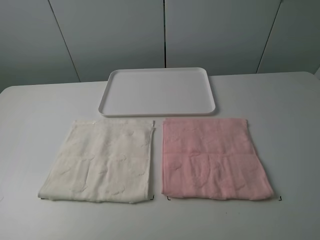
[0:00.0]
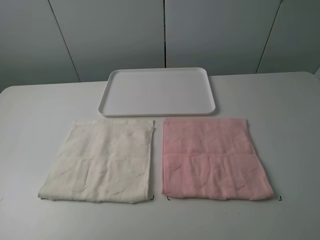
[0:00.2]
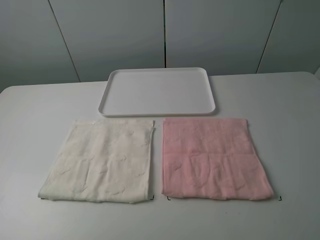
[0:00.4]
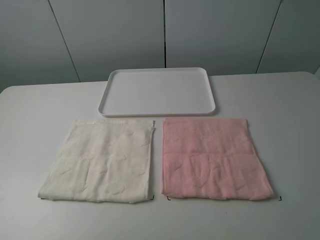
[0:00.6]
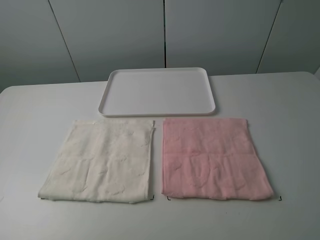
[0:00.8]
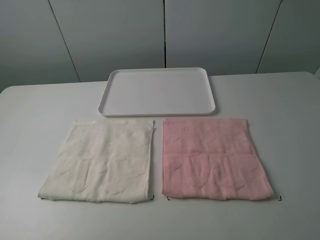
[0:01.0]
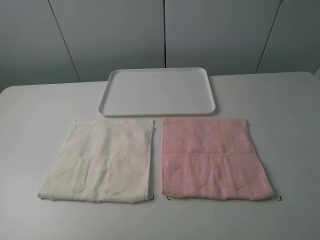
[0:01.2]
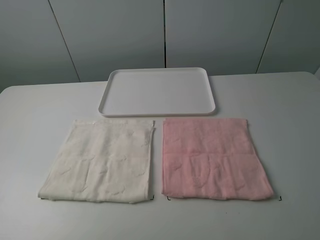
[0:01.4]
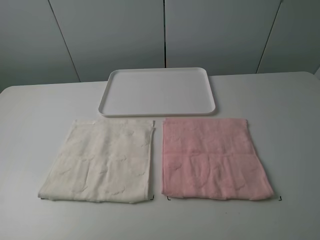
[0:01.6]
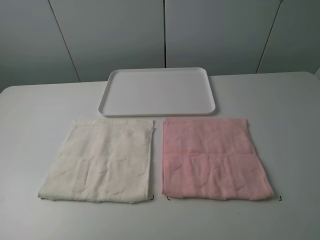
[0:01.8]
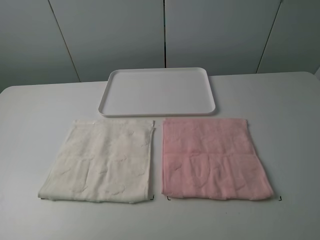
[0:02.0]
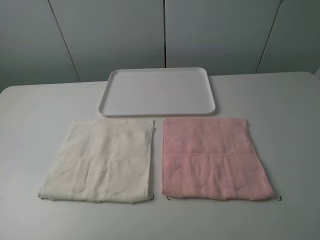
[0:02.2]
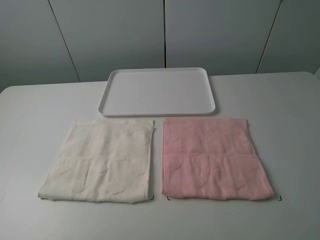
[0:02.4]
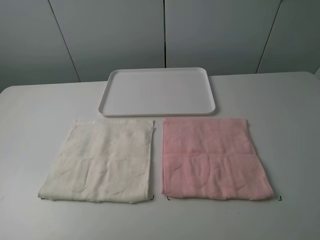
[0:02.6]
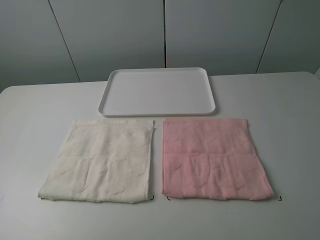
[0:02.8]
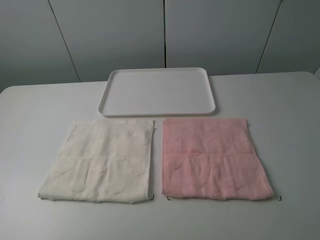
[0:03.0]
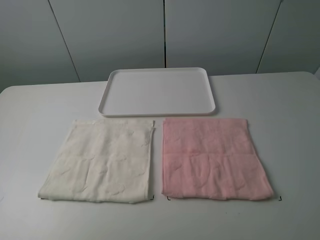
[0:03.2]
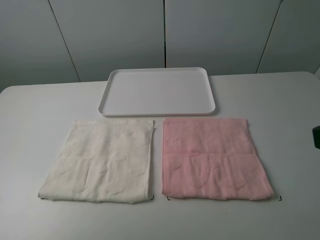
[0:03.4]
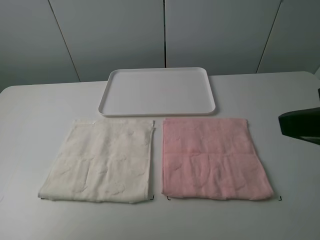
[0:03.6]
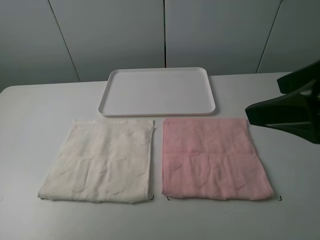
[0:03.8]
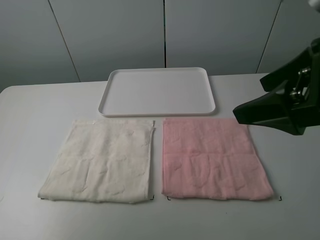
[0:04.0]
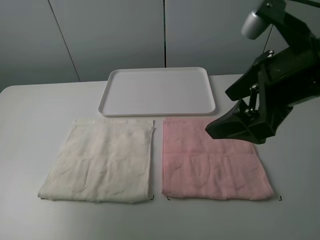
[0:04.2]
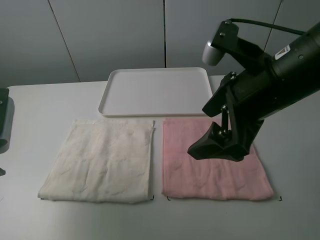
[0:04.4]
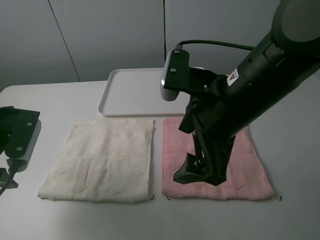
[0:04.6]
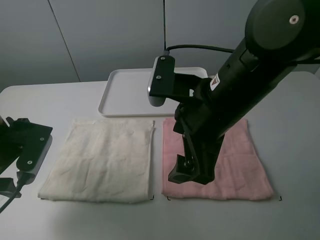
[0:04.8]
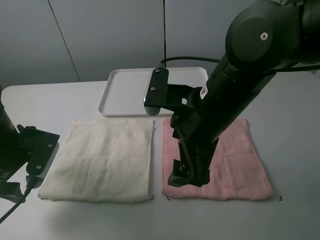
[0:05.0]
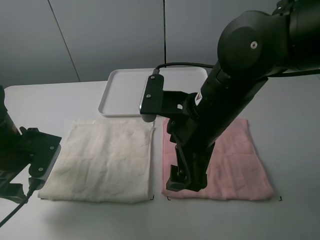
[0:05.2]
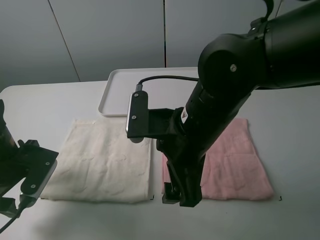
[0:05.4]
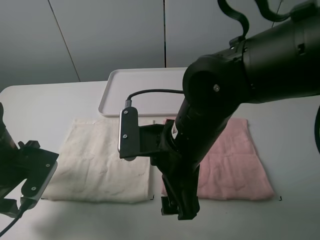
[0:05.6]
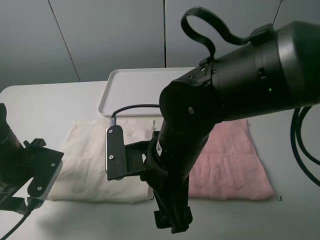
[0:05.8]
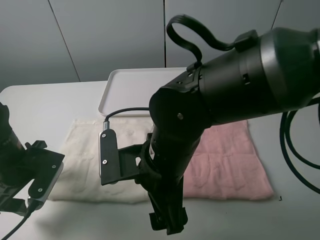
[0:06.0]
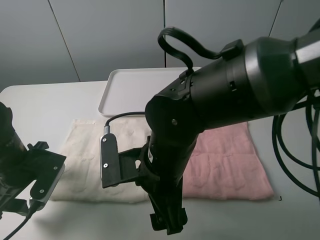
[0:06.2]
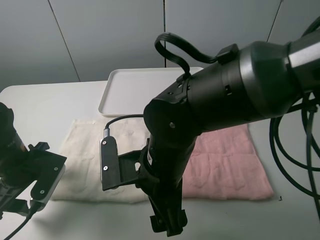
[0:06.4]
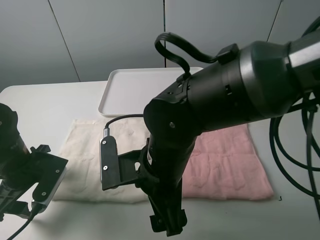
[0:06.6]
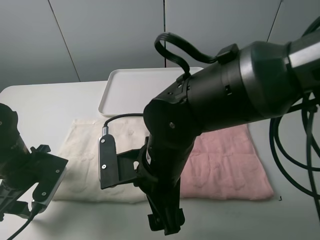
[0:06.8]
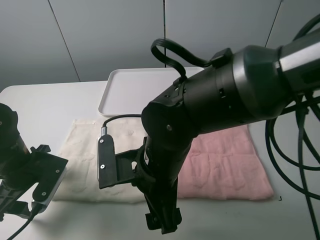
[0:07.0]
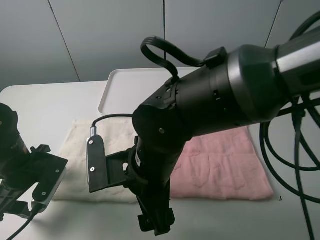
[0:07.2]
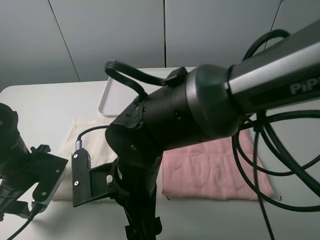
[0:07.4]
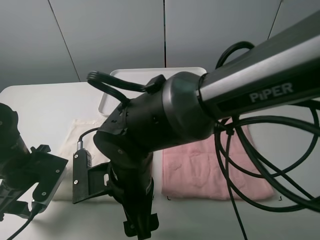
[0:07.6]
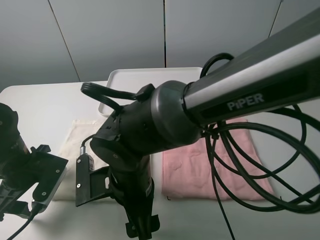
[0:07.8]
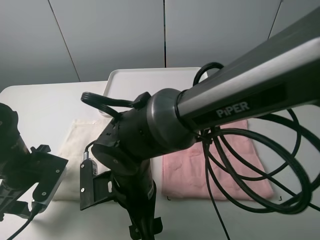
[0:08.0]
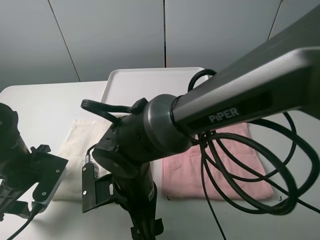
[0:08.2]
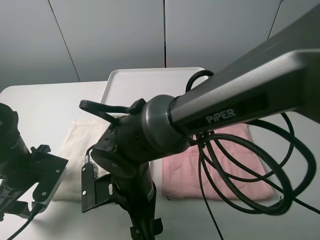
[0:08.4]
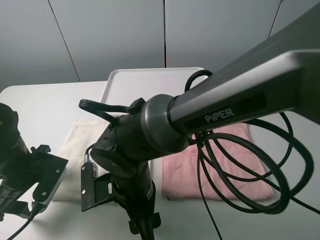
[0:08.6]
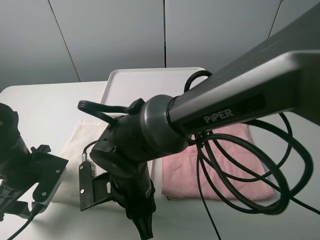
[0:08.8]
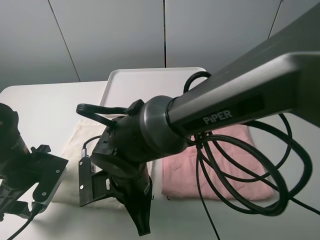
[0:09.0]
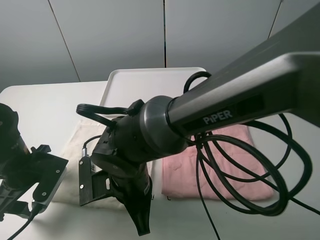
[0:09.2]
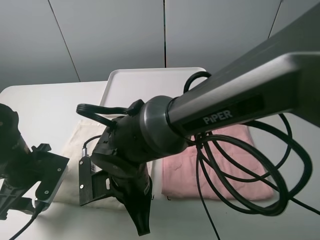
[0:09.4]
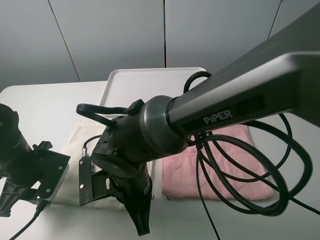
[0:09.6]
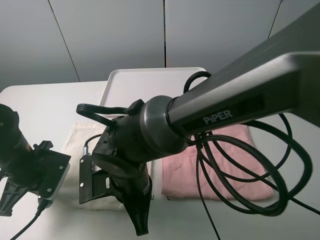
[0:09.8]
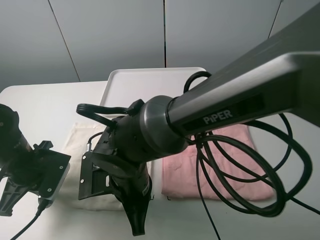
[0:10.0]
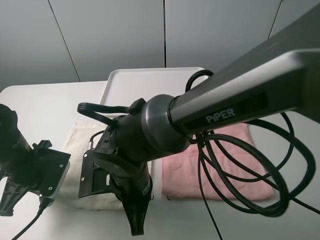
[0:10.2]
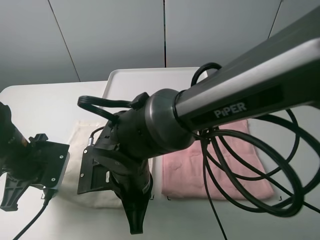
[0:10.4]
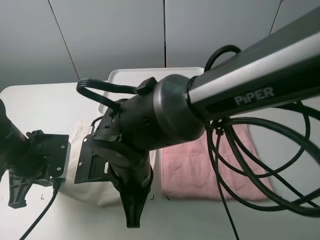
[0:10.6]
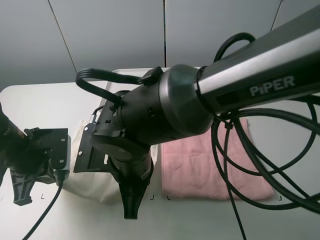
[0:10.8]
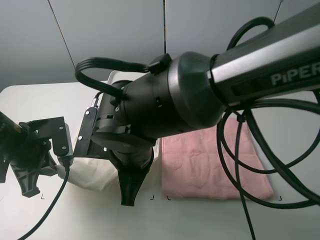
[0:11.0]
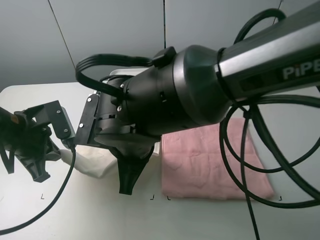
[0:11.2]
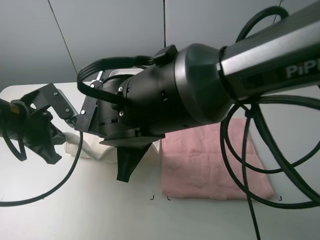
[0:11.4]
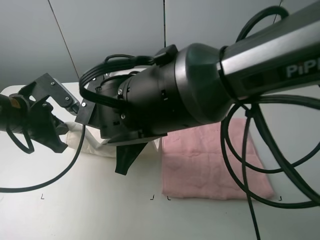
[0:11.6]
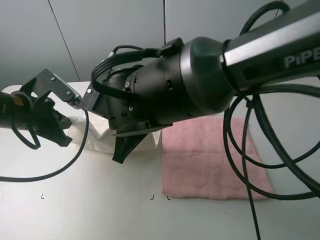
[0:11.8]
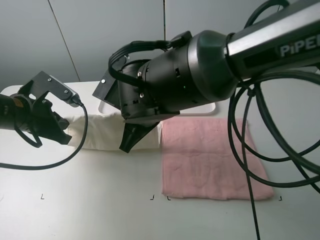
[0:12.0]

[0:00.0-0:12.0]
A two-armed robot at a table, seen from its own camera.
Task of the whole recording: fold one of the towels by two grippers and place it on the tray,then fold another towel by two grippers and place it on the folded towel.
Step, 0:00.0 to 0:10.0: Grasp the white towel with the right gripper.
0:00.0 to 0:01.6: Neither gripper changes place.
0:03.0 to 0:04.4: The left gripper travels forward and downward by approximately 20 cm. The right gripper goes about 25 cm forward and to the left.
0:04.4 to 0:06.0: The left gripper moves downward, roughly 10 cm. The right gripper shifts approximately 15 cm to the left and downward.
0:06.0 to 0:07.6: The right gripper moves to the left, approximately 5 cm.
0:07.6 to 0:09.0: The right gripper closes its fingers.
0:09.0 to 0:10.4: The left gripper closes up.
0:10.4 to 0:12.0: The left gripper ends up some 5 cm from where it was, while the right gripper moves forward and upward, about 10 cm.

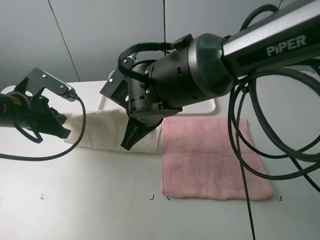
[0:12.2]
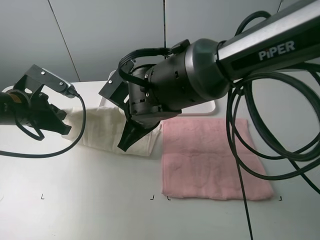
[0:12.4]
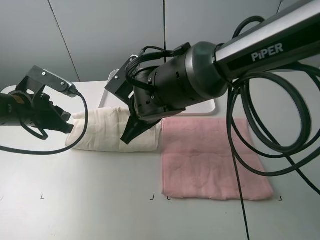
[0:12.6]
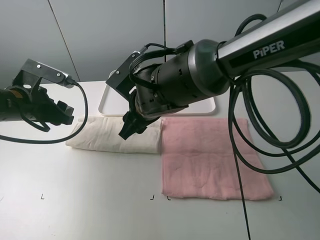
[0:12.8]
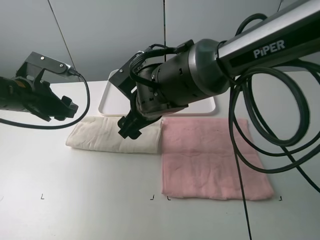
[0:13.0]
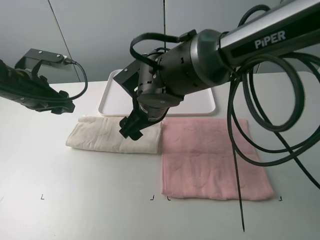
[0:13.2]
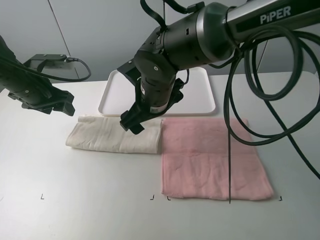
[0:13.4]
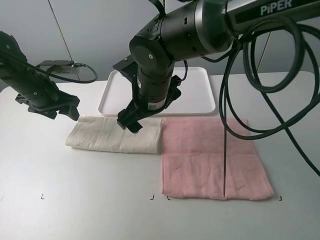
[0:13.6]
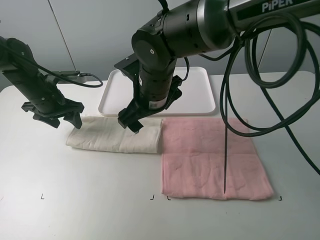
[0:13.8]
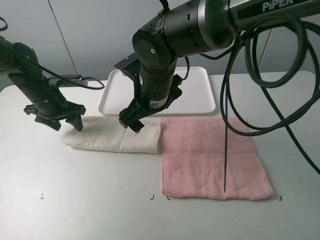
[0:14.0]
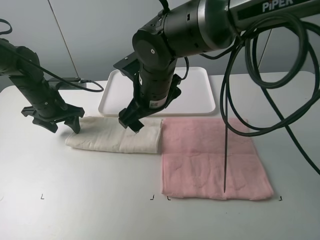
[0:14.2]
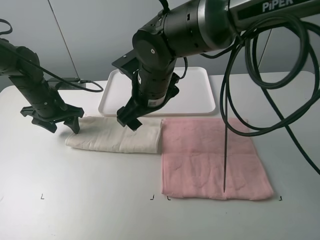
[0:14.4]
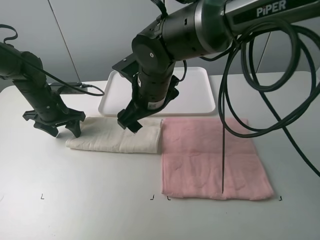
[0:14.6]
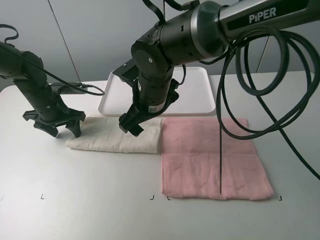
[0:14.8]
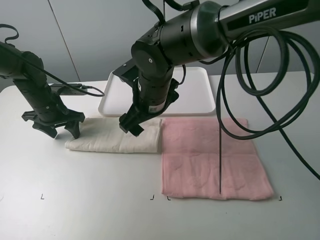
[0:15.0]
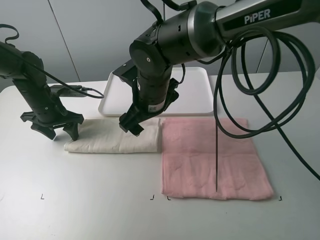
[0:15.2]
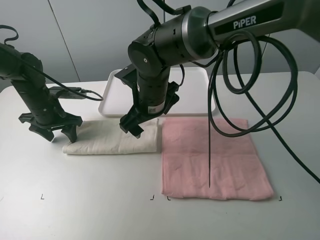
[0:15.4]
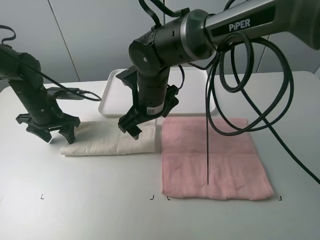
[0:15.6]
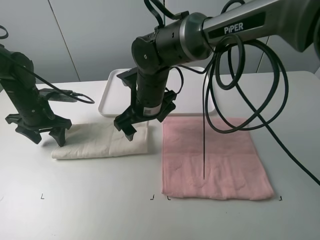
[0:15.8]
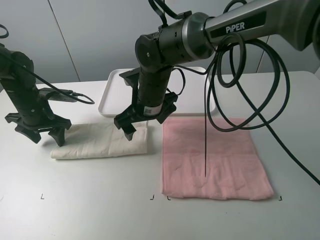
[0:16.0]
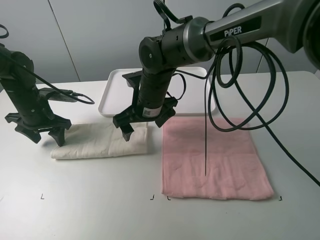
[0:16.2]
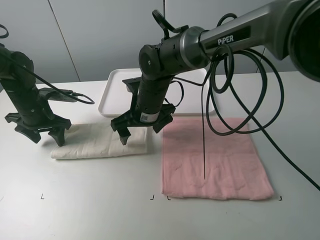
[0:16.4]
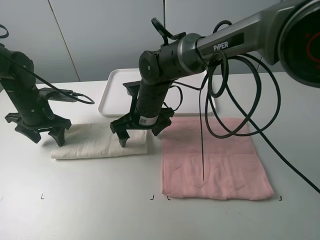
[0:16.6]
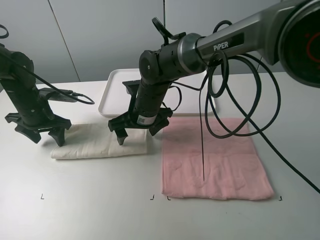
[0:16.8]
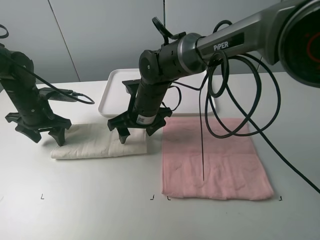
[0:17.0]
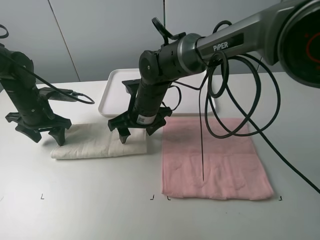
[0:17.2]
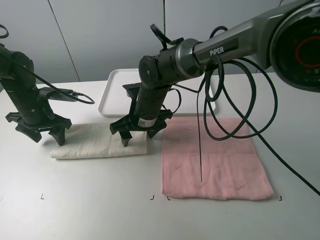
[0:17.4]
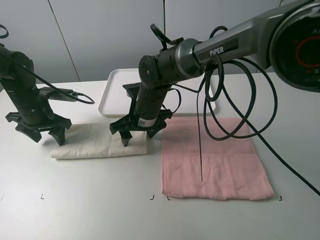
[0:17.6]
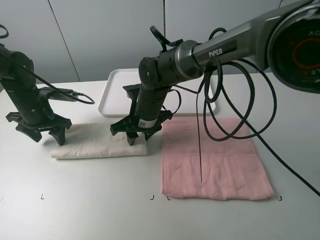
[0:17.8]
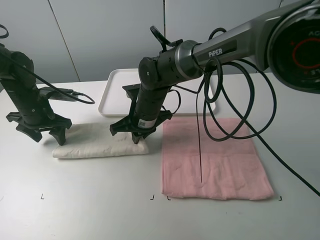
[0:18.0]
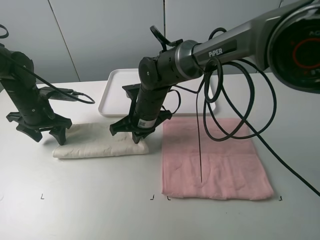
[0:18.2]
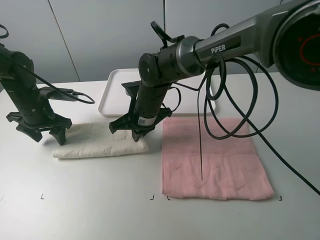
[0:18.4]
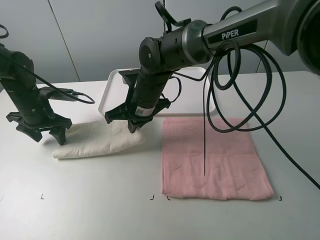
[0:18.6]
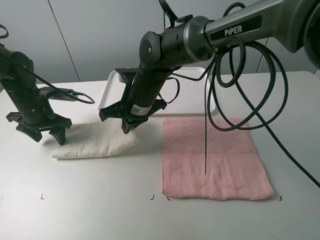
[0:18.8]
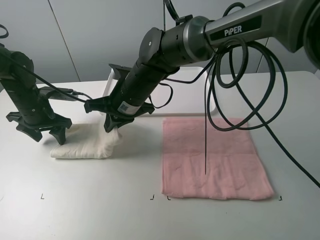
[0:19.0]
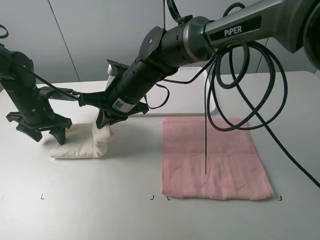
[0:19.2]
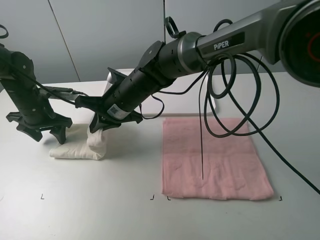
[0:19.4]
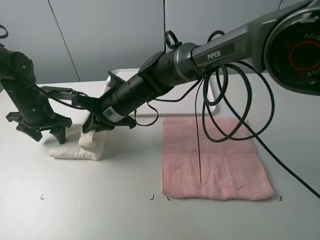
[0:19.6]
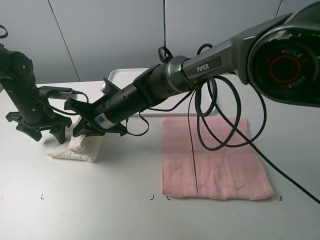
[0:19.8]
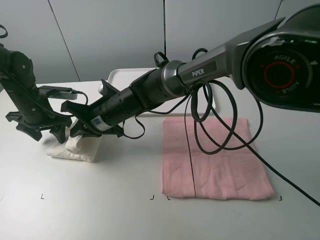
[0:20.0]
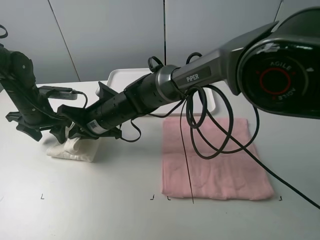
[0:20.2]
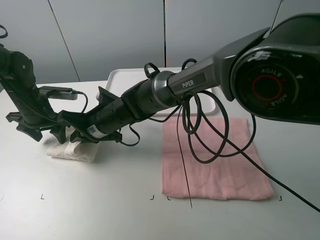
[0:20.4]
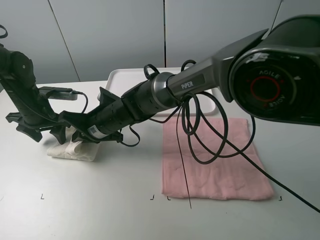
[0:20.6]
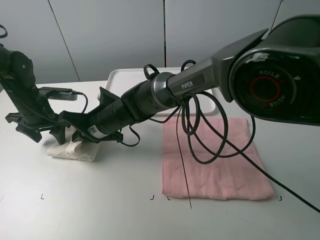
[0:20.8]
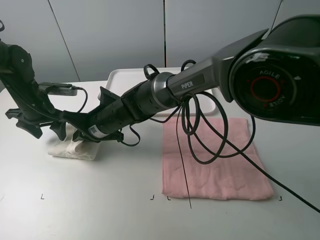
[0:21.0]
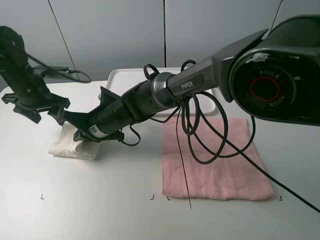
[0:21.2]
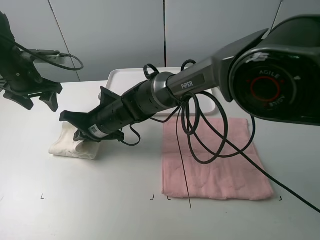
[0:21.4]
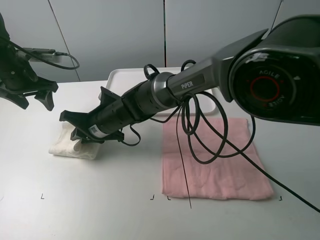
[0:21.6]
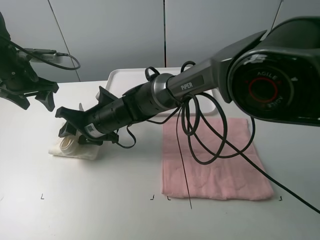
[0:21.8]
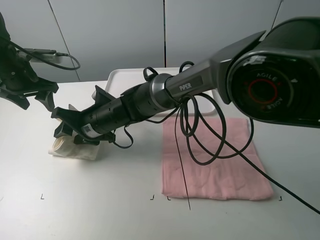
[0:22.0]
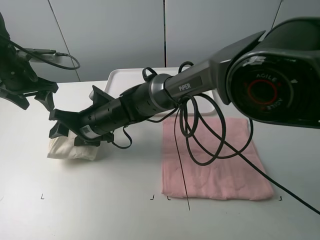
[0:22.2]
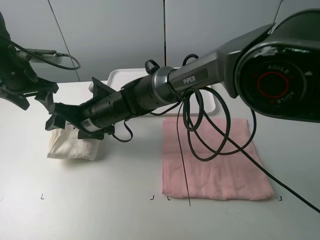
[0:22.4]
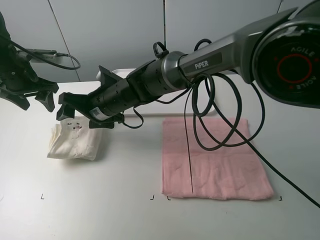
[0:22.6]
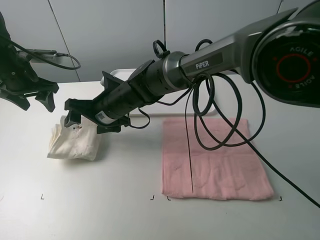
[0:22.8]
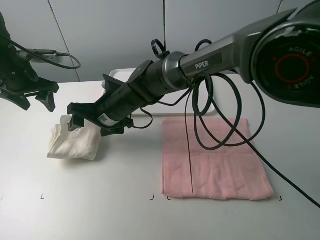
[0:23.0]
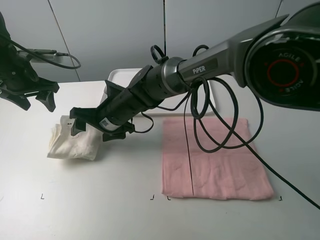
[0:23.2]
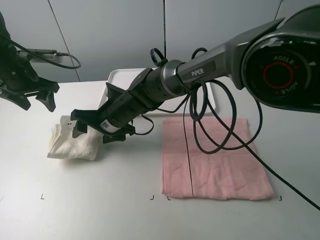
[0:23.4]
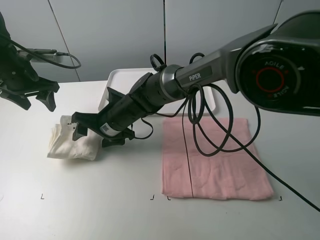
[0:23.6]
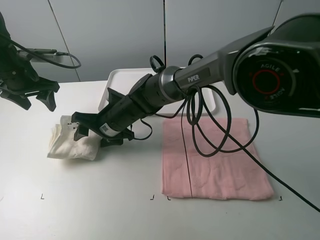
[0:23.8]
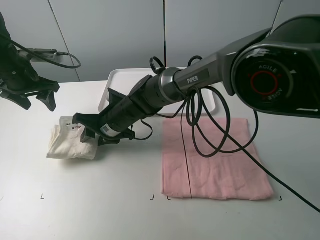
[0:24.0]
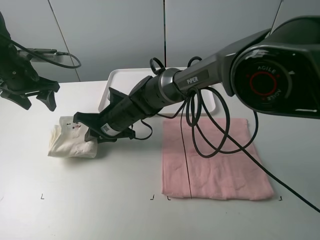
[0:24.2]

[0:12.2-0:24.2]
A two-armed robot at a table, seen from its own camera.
Task of the whole recording: fold one of the towels by two grippers and place it on the tray,then fold another towel by two grippers and place it on the folded towel.
Step, 0:14.2 to 0:15.0: Press the white towel with the left gripper.
Step, 0:15.2 to 0:18.0: Grasp the white towel with the right gripper.
Step, 0:18.2 to 0:22.4: Fold the white towel from right to left with right gripper.
0:12.2 to 0:13.8: The right gripper opens. Meanwhile the left gripper goes approximately 10 cm forward, and opens.
0:15.2 to 0:16.6: The right gripper is displaced downward by roughly 5 cm.
0:16.6 to 0:18.2: The right gripper closes up.
0:18.2 to 0:19.8: The right gripper shifts about 5 cm to the left.
0:19.8 to 0:21.2: The left gripper travels upward by about 5 cm.
0:21.2 to 0:22.6: The right gripper opens up.
0:22.6 to 0:24.2: The right gripper closes its fingers.
